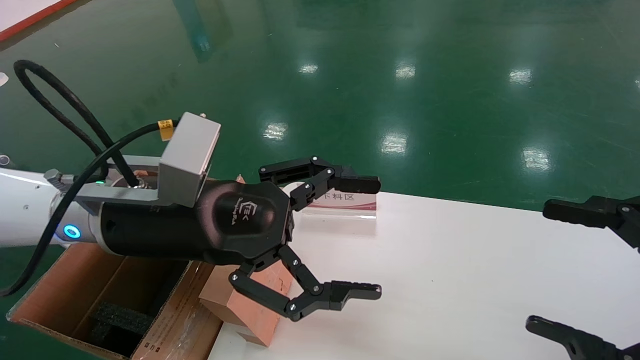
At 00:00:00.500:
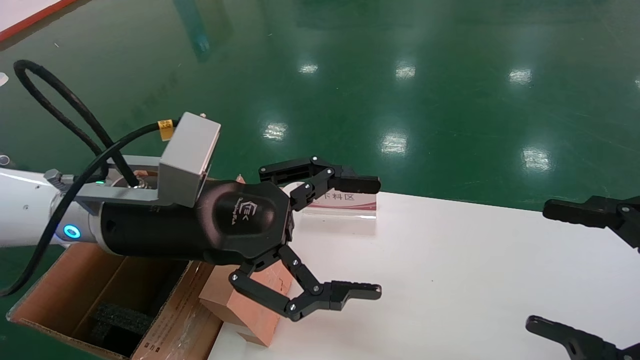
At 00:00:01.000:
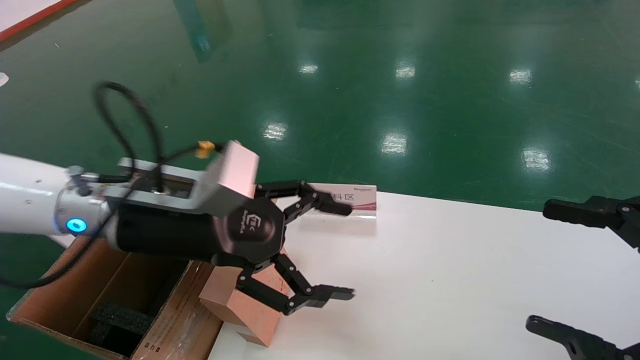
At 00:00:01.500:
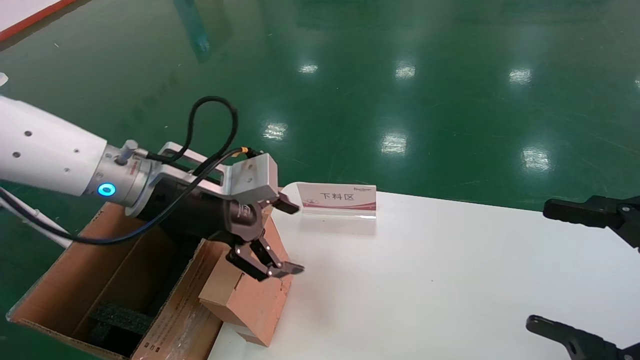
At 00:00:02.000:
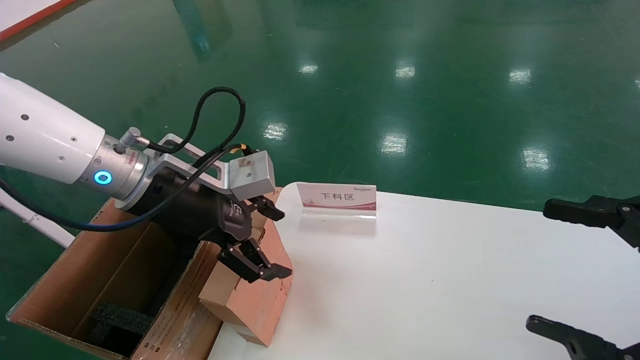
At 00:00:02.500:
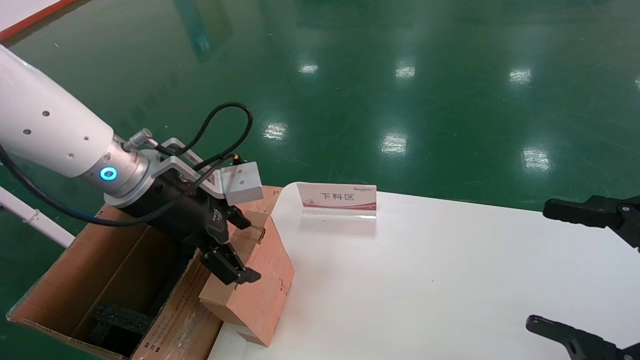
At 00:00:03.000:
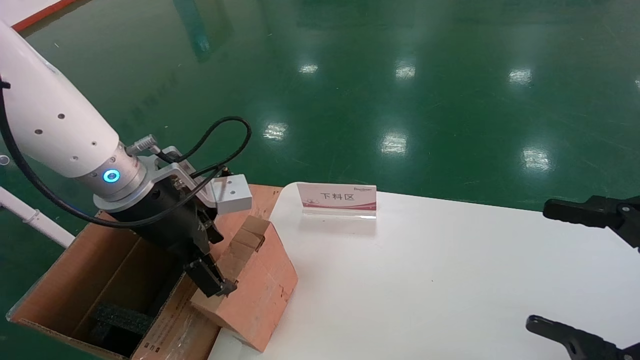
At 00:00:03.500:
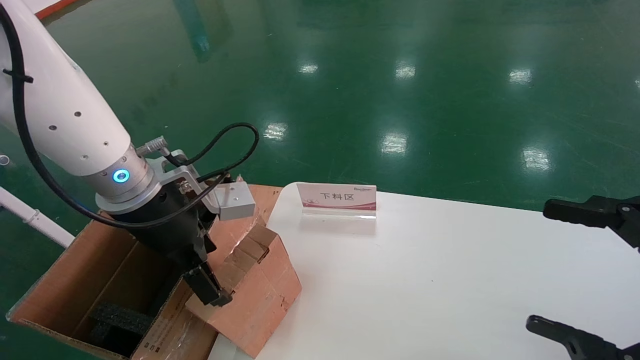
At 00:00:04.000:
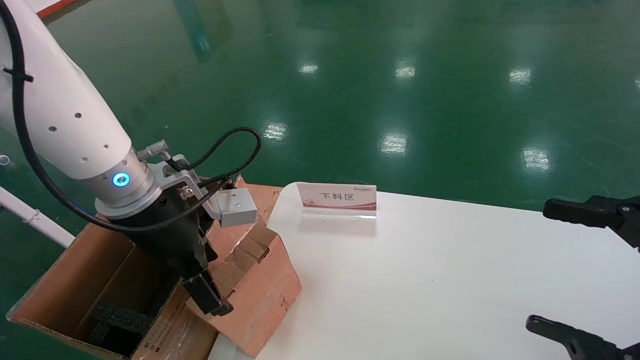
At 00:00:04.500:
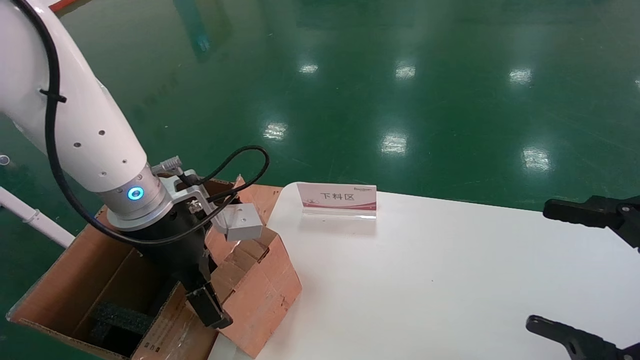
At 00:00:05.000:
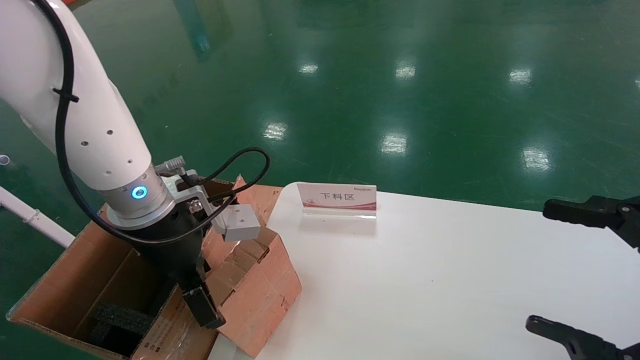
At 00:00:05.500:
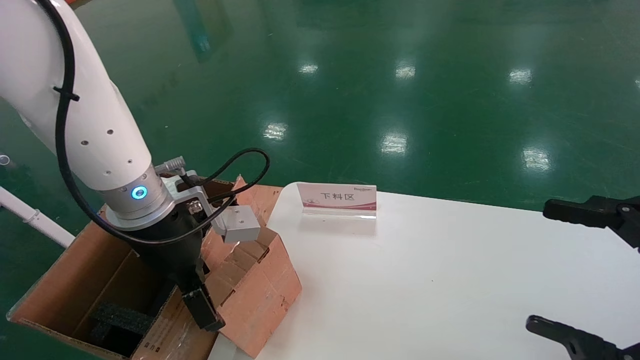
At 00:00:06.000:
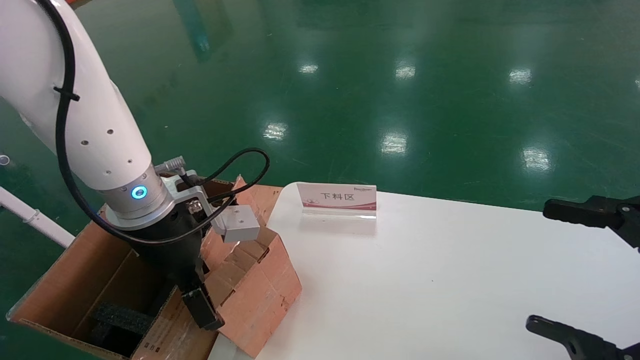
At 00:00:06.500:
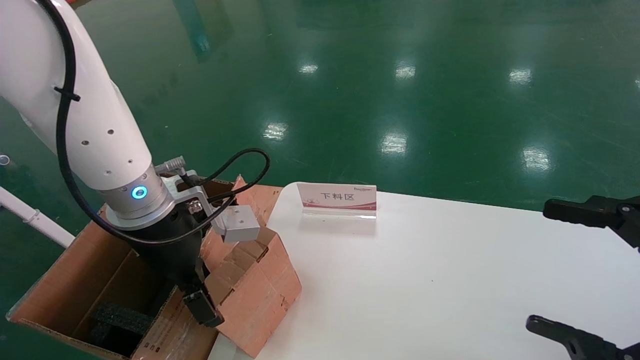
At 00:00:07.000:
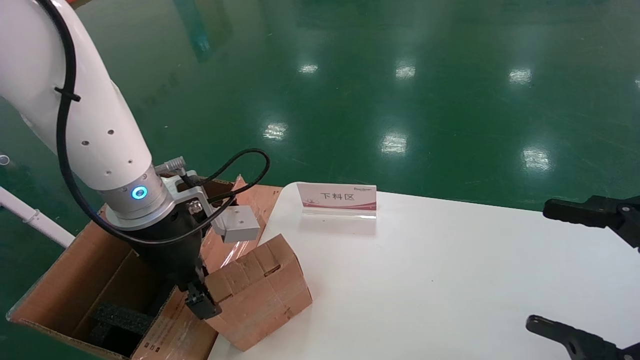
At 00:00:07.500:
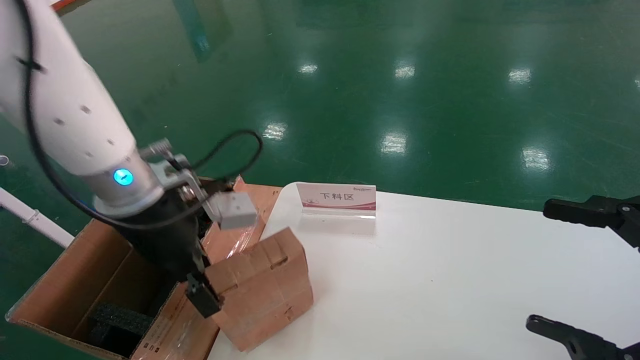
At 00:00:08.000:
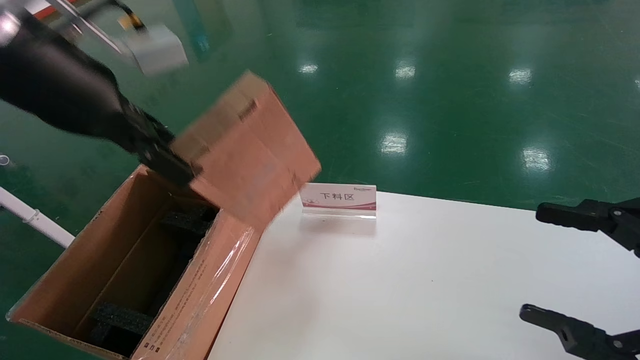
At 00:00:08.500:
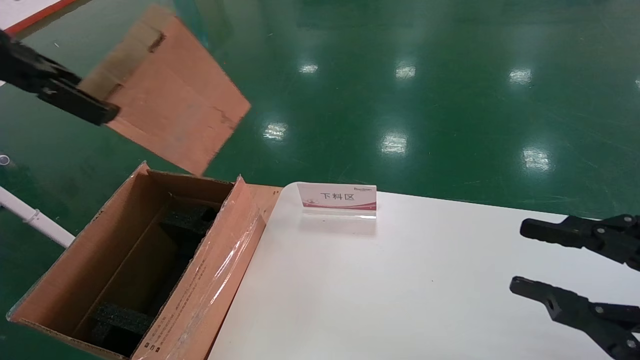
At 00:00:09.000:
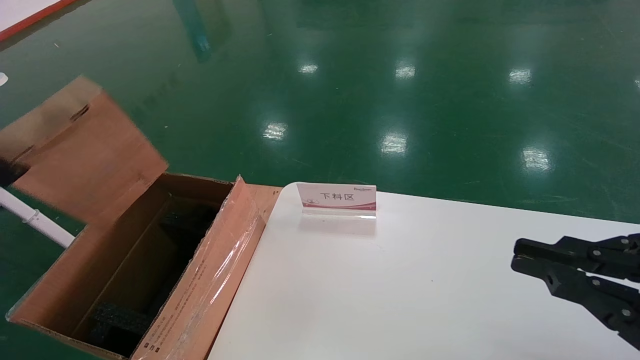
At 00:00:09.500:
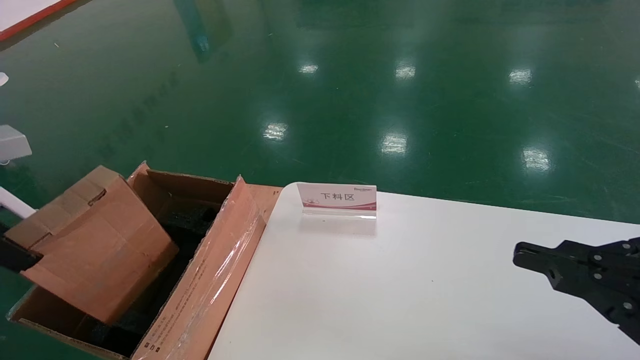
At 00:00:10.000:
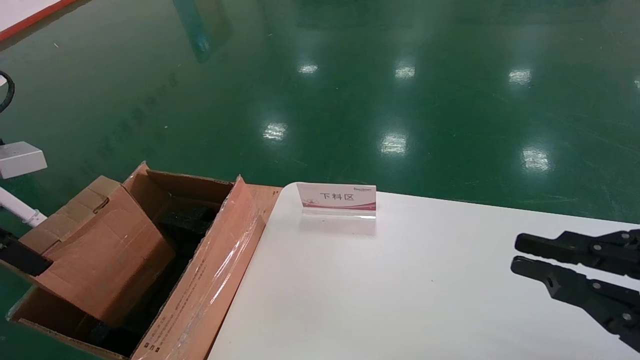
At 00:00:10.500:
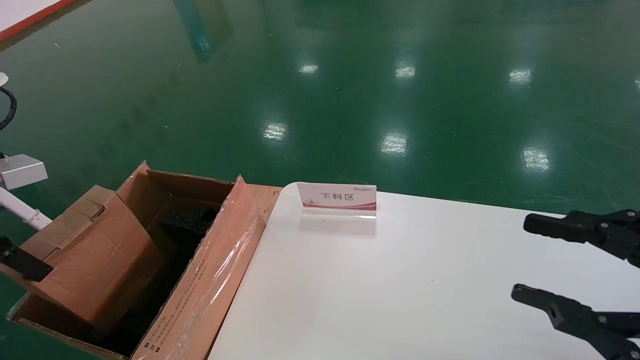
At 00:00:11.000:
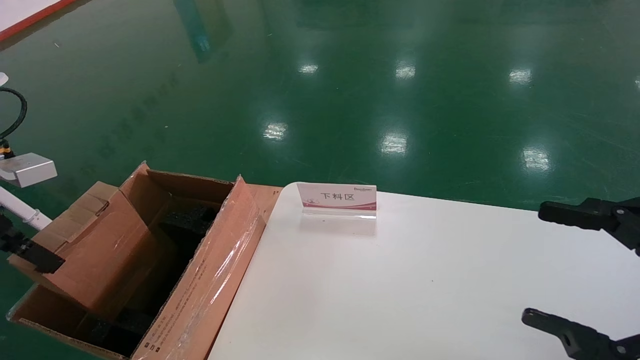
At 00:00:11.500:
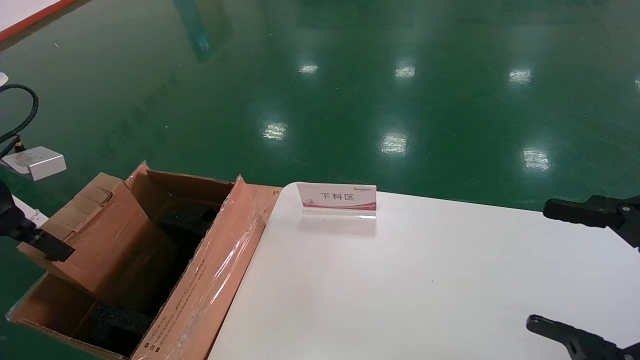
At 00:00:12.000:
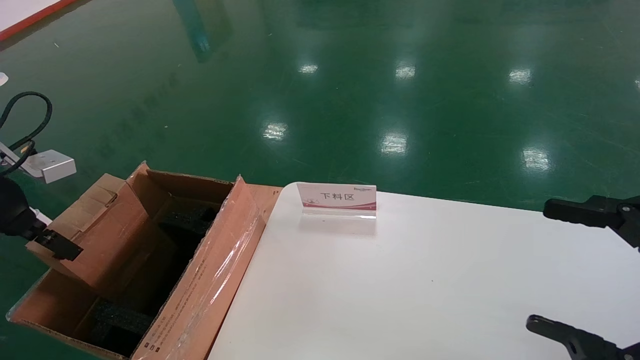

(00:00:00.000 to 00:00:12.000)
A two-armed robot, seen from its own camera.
Task of the whole recording: pick up the small cardboard box and load it into the large cardboard box.
Step, 00:00:01.500 - 00:00:06.500: Pick up the mouse and power cord box.
00:00:00.000 - 00:00:02.000: The left gripper shifts about 5 cm forward.
00:00:04.000 - 00:00:06.000: The grippers stay close to where they were, moving slightly.
00:00:06.000 - 00:00:08.000: The left gripper heads upward, covering approximately 15 cm, and closes its fingers.
00:00:08.000 - 00:00:10.000: The right gripper closes its fingers; the left gripper heads to the left and downward, covering roughly 20 cm.
00:00:10.000 - 00:00:12.000: The right gripper opens its fingers. The left gripper travels forward by some 5 cm.

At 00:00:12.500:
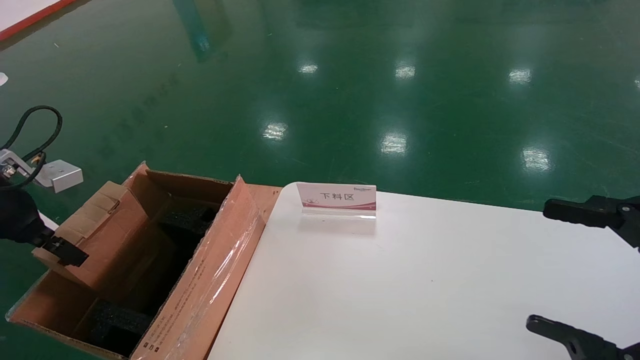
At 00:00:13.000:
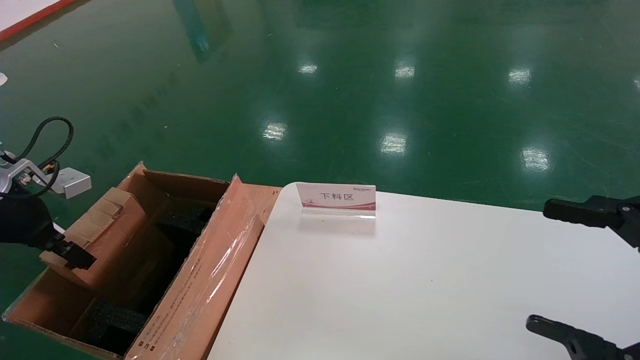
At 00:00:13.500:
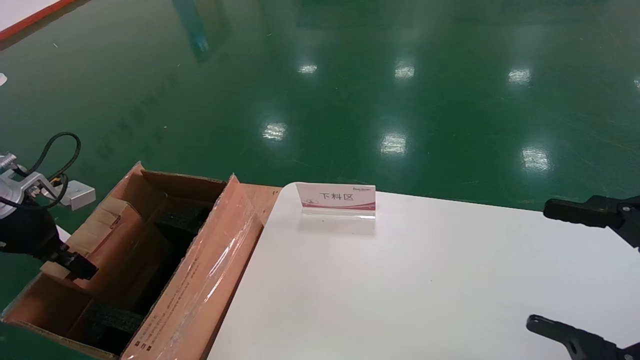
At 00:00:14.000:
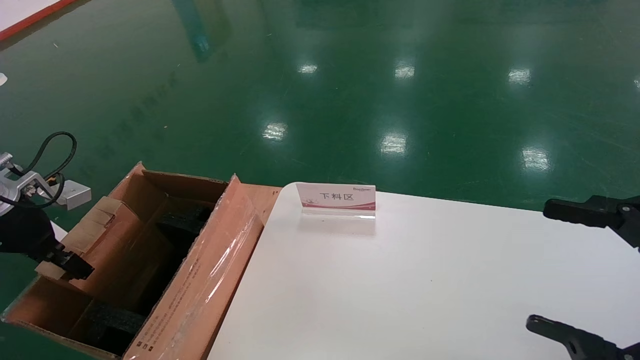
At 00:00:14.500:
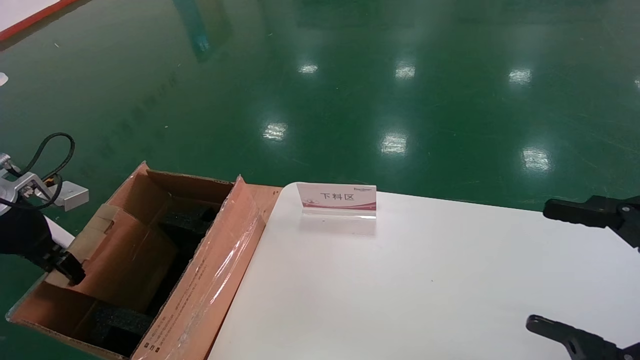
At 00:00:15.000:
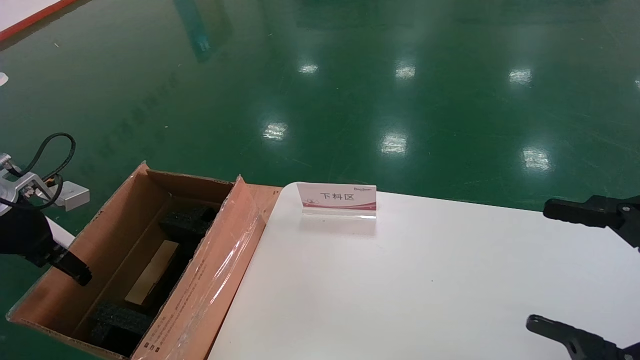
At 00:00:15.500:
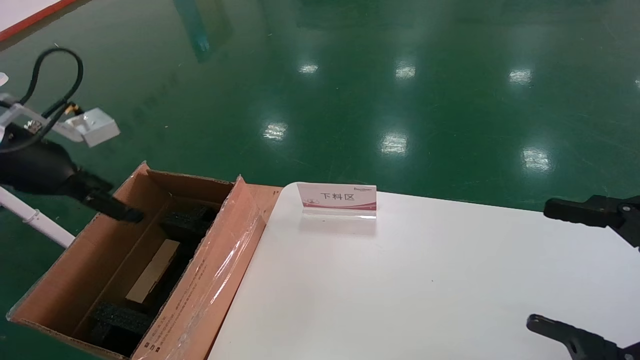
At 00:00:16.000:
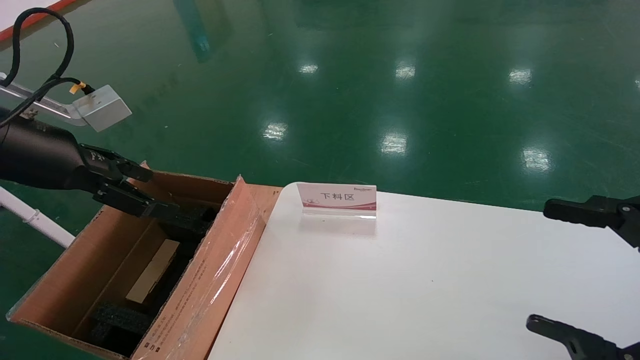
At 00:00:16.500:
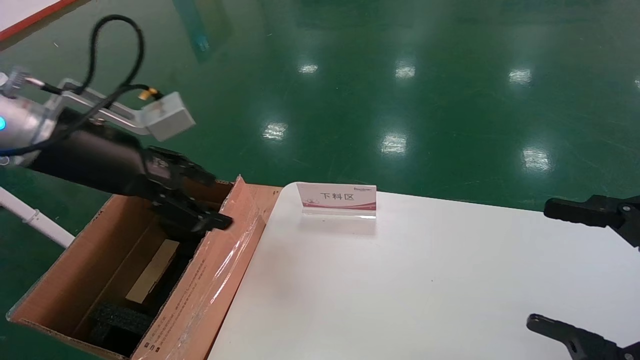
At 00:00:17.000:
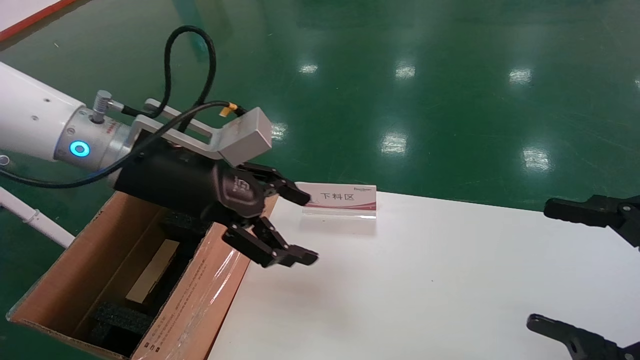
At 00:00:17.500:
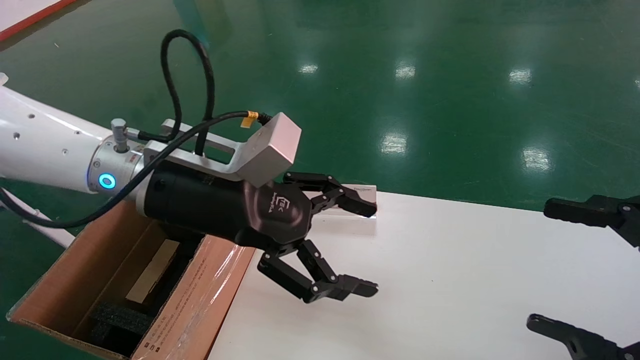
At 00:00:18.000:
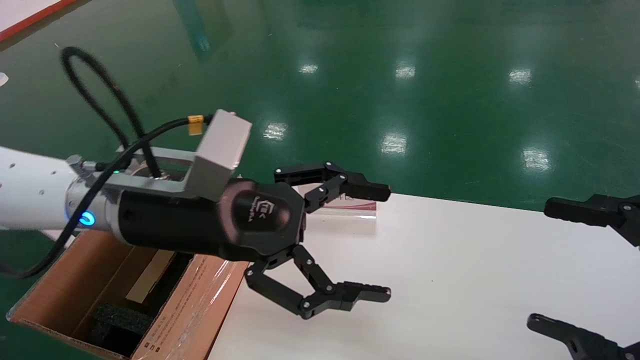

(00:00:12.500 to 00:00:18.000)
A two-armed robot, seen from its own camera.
Task of the whole recording: pick up the small cardboard box and load it into the large cardboard box.
Step, 00:00:12.500 - 00:00:14.500: Place the mouse and power cord box into the case.
00:00:12.500 - 00:00:14.500: The left gripper ends up some 5 cm from where it was.
00:00:14.500 - 00:00:16.000: The left gripper shifts some 15 cm upward and to the right, and opens its fingers.
00:00:16.000 - 00:00:18.000: The left gripper moves to the right, approximately 20 cm.
